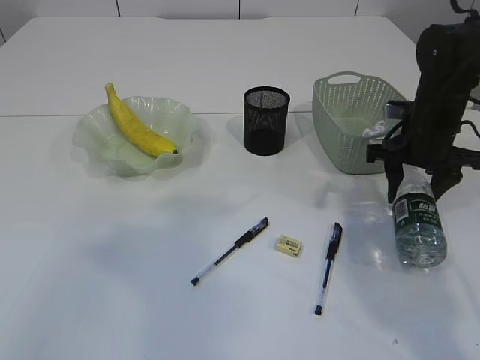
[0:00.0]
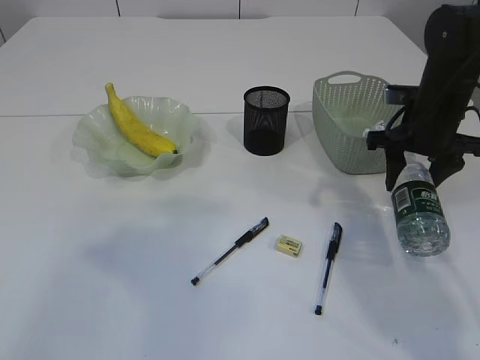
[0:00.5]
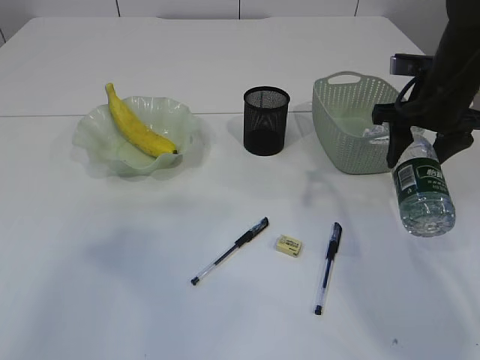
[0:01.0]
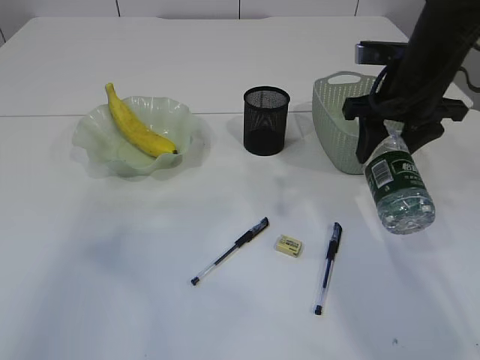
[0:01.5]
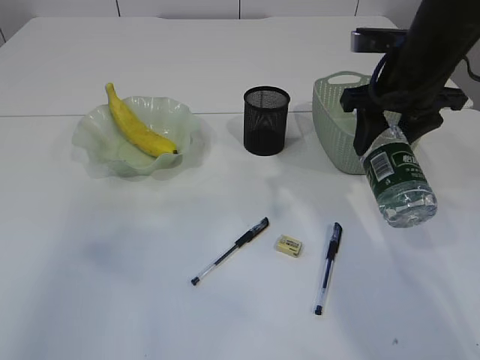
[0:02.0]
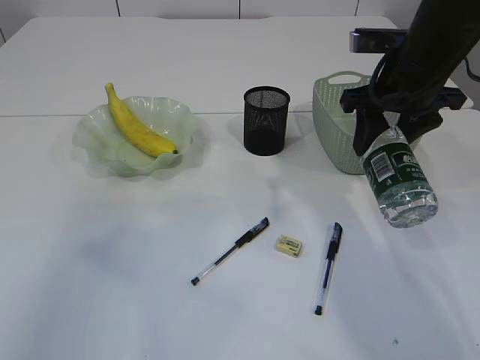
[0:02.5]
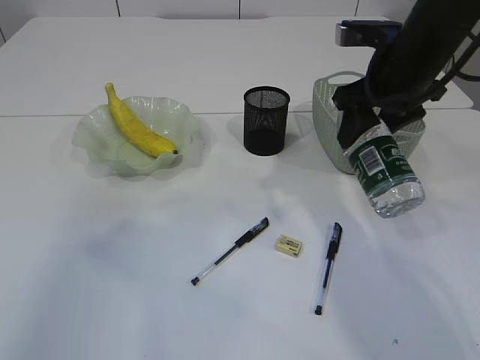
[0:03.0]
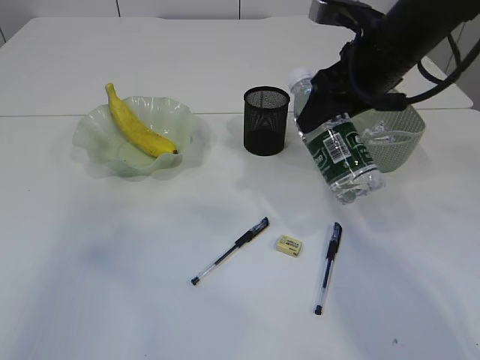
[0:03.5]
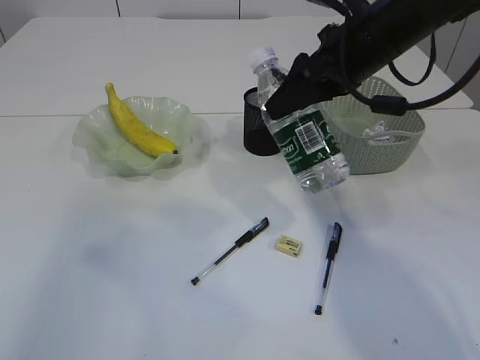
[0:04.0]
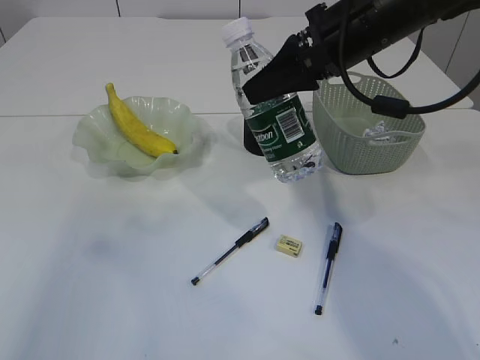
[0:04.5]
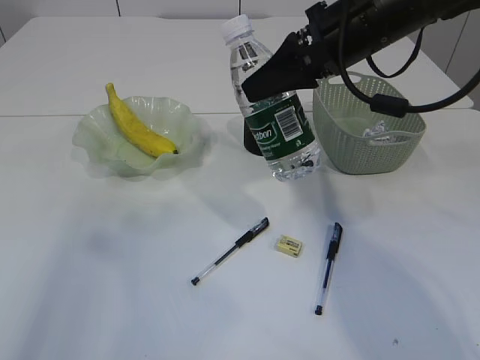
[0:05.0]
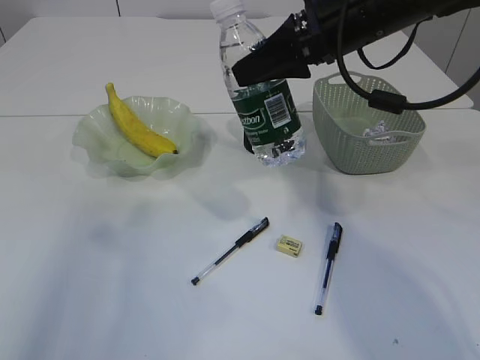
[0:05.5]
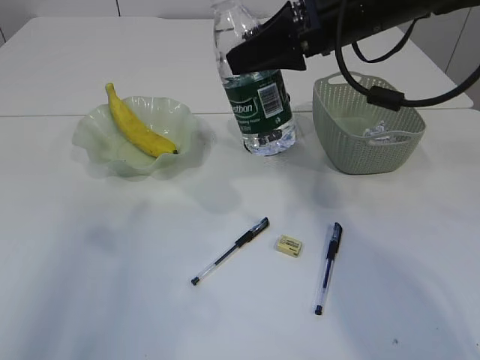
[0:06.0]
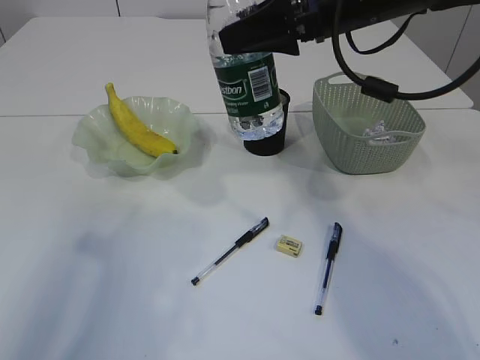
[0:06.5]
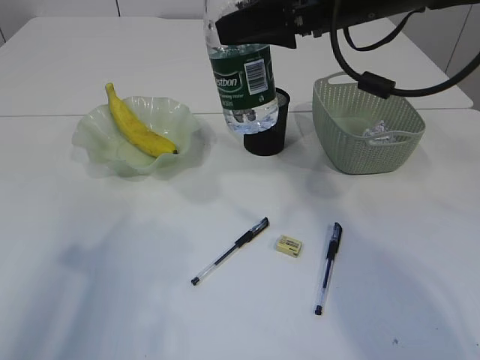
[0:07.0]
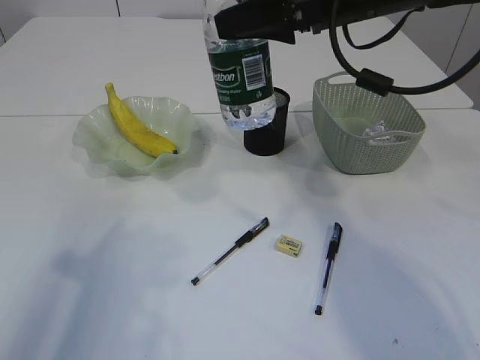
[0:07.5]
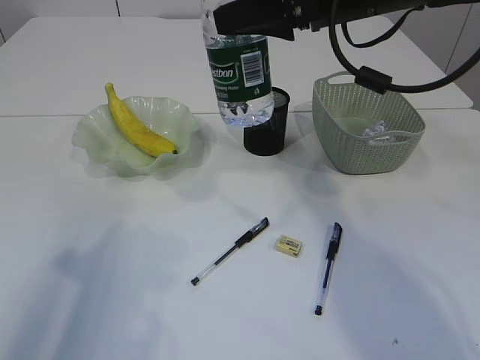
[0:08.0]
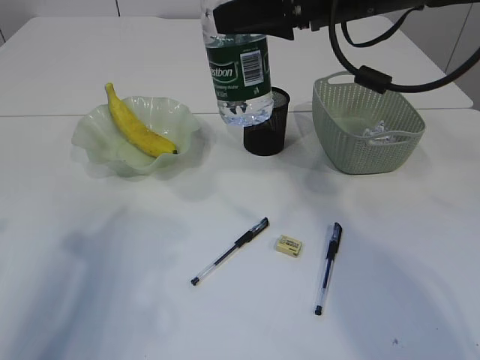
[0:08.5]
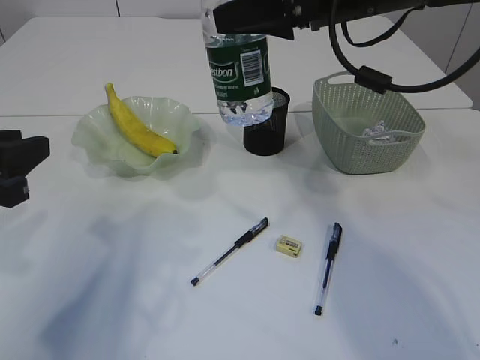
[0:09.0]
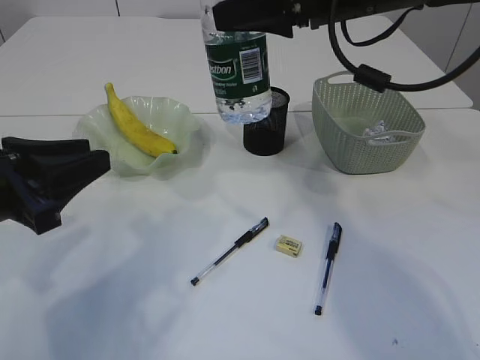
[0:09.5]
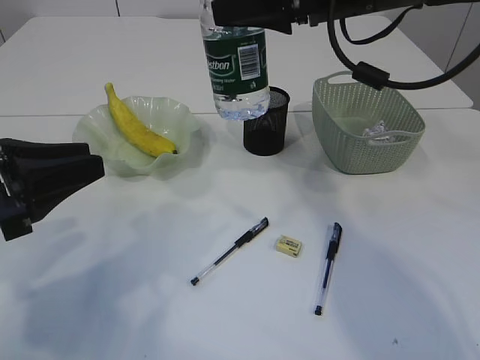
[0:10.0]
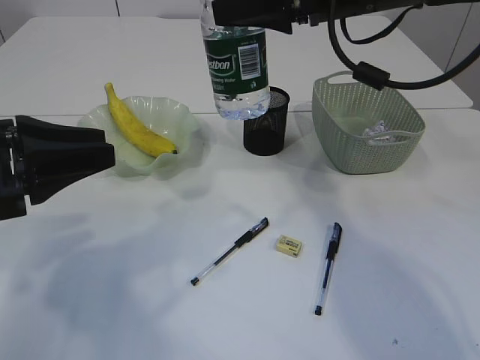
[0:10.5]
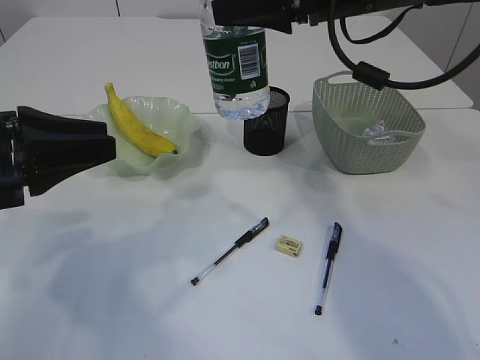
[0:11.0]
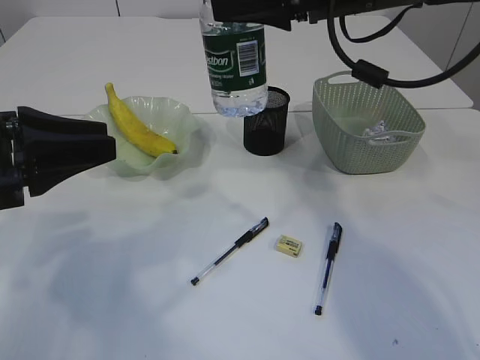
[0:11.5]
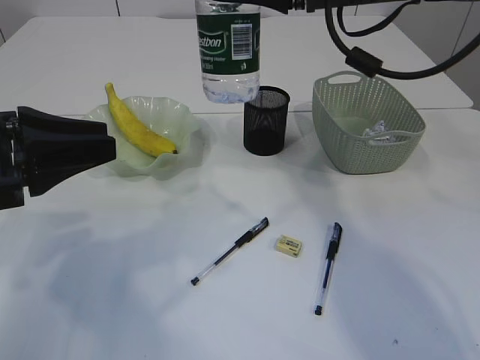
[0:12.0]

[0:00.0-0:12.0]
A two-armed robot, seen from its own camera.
0:00.0 to 0:02.0: The right gripper heads upward and to the left, covering approximately 10 cm.
0:02.0 to 0:04.0: The right gripper is displaced to the left by roughly 5 cm.
0:04.0 to 0:06.0: The left gripper is displaced downward by about 10 cm.
0:06.0 to 0:08.0: The left gripper is displaced downward by about 5 cm.
0:08.0 to 0:10.0: The left gripper goes about 10 cm forward and downward.
0:10.0 to 0:12.0: The grippers stay close to where they were, moving slightly.

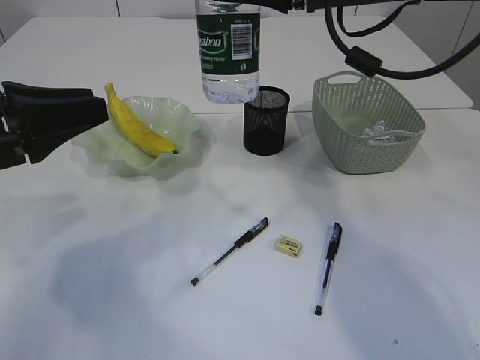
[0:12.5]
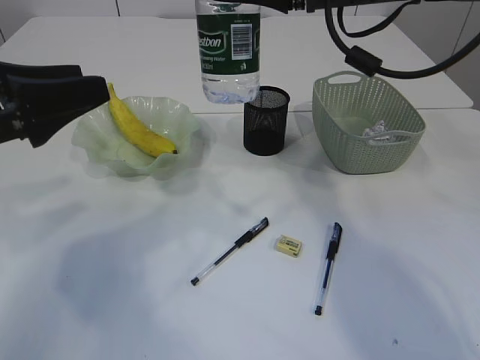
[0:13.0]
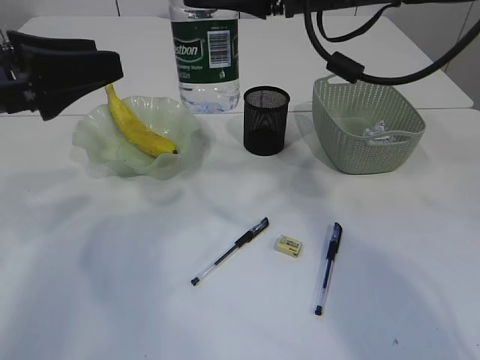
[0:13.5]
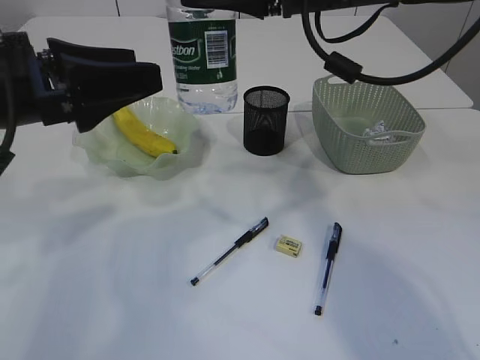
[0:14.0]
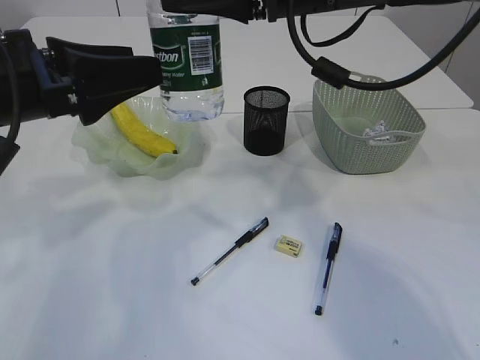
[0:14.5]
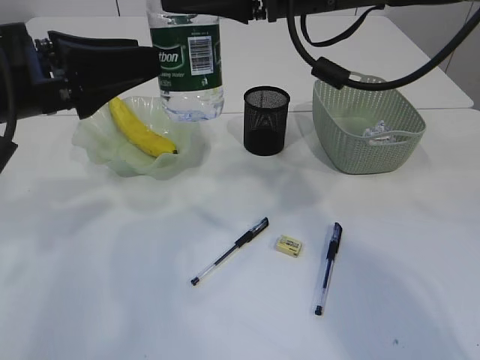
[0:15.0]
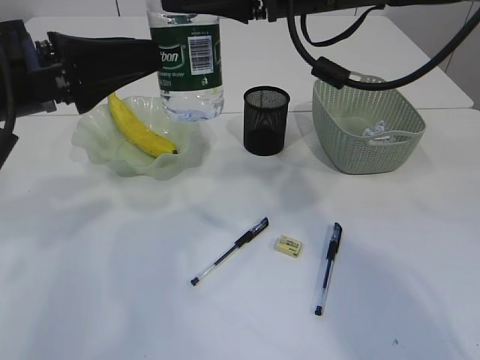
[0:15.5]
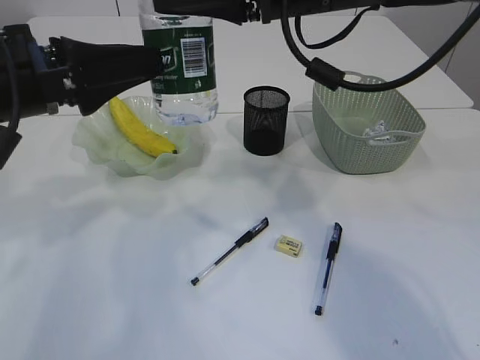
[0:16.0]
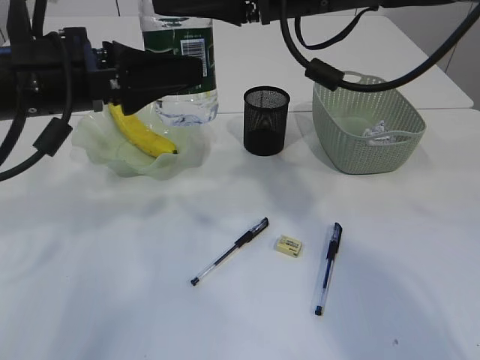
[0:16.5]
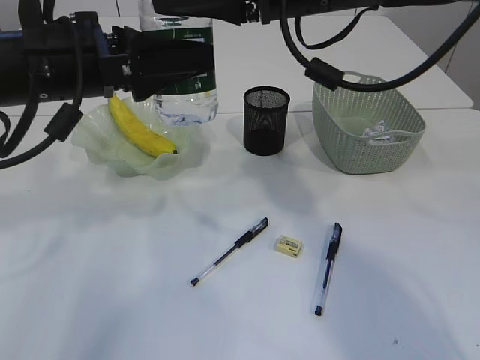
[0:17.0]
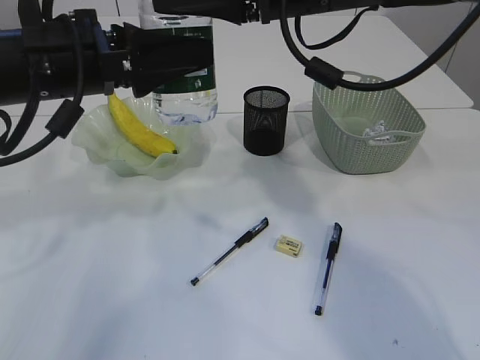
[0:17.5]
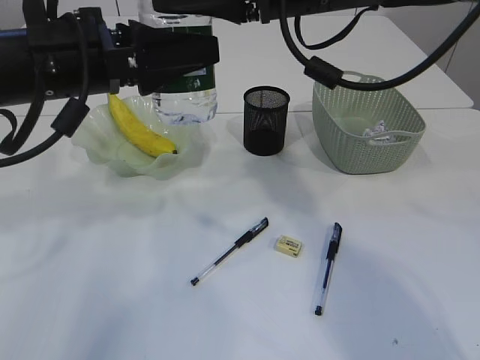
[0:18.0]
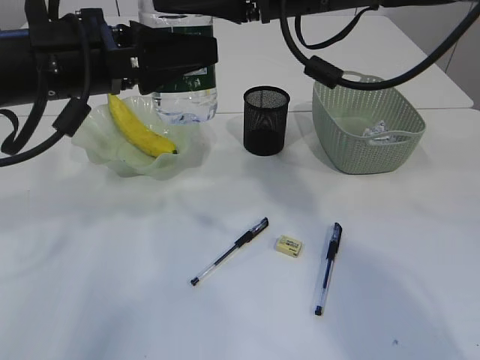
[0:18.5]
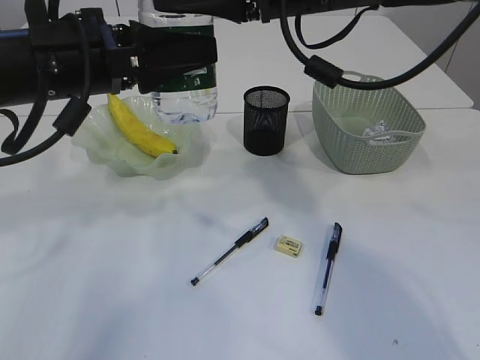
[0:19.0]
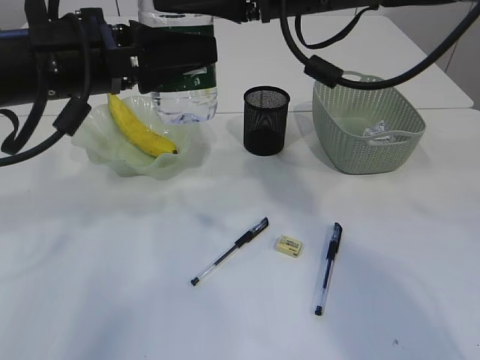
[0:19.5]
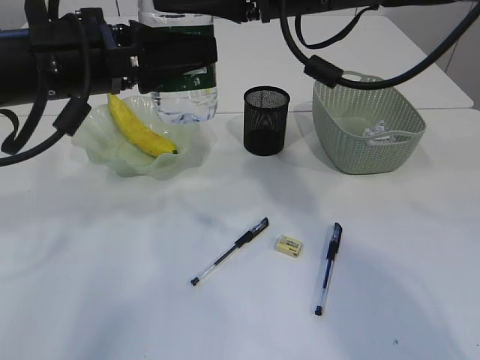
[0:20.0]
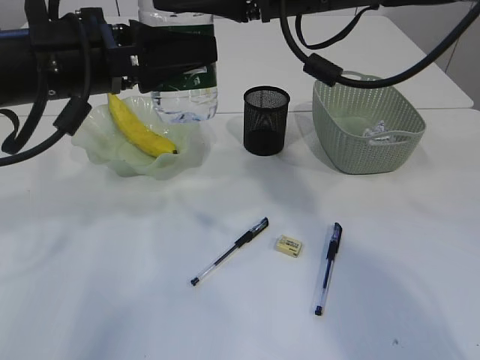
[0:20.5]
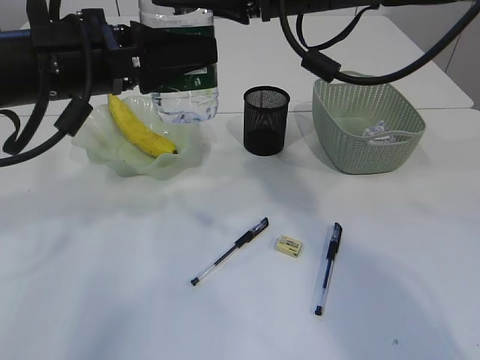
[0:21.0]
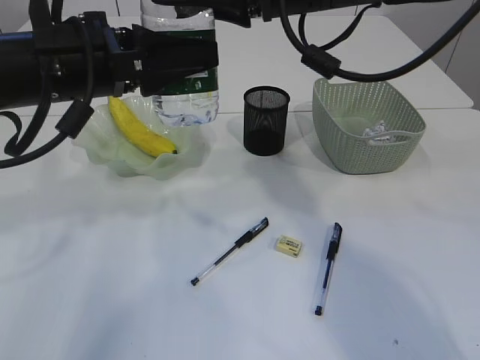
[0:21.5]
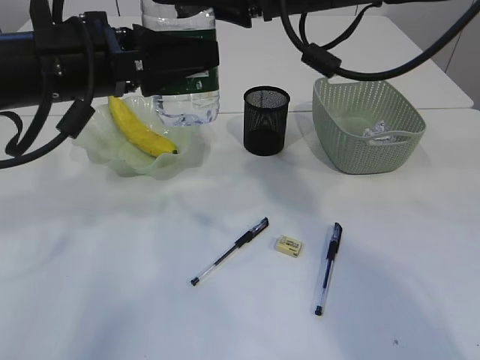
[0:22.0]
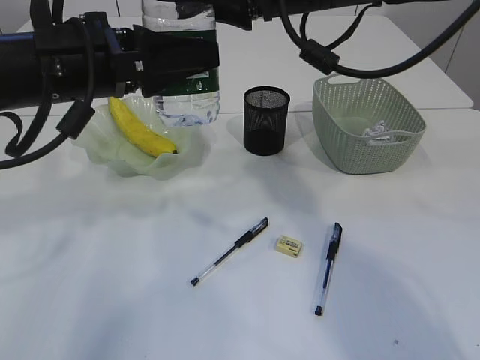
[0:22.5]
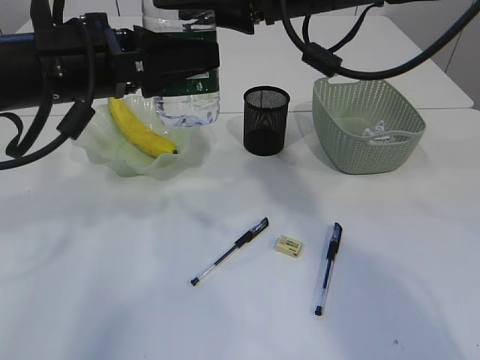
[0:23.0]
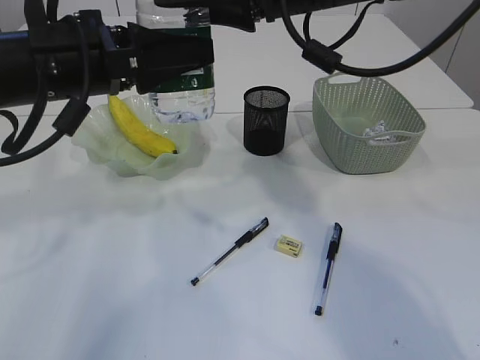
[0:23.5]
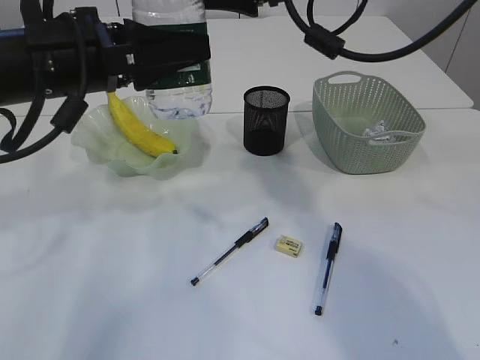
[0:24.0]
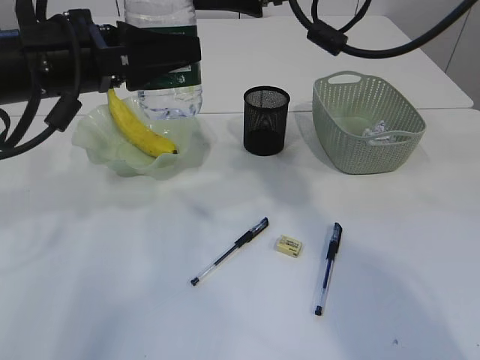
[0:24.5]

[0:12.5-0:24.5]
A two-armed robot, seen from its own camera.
0:12.5 to 0:14.5: The left gripper ends up about 5 cm from where it was, and opens up.
0:14.5 to 0:18.5: The grippers make only small movements.
0:18.5 to 0:20.5: The two grippers keep their place.
0:20.5 to 0:24.5: The grippers stay close to where they were, moving slightly.

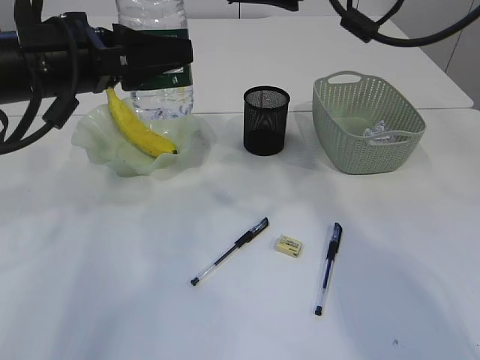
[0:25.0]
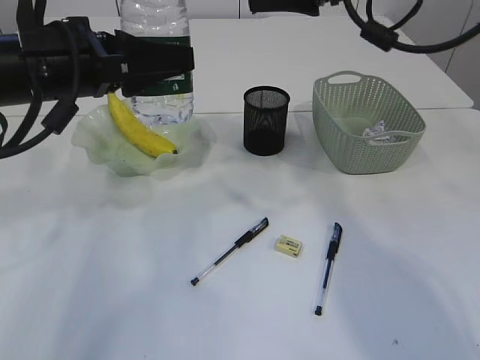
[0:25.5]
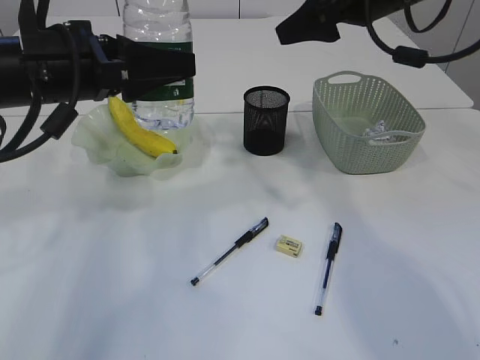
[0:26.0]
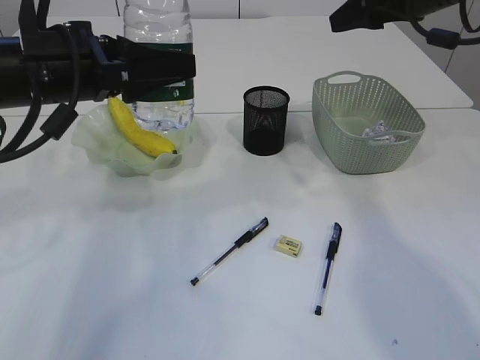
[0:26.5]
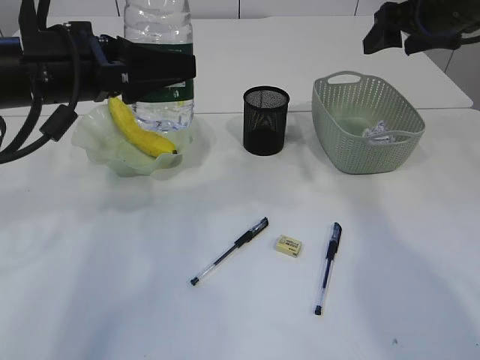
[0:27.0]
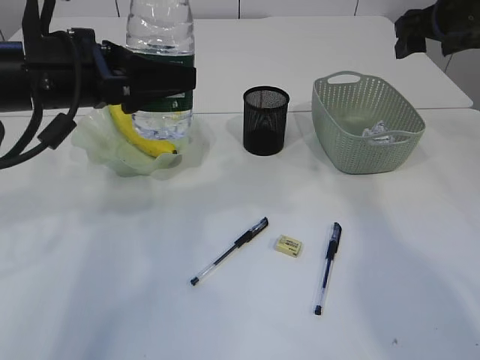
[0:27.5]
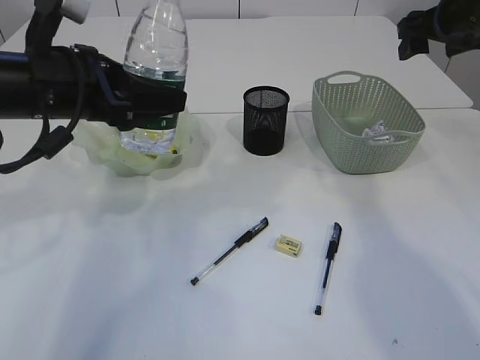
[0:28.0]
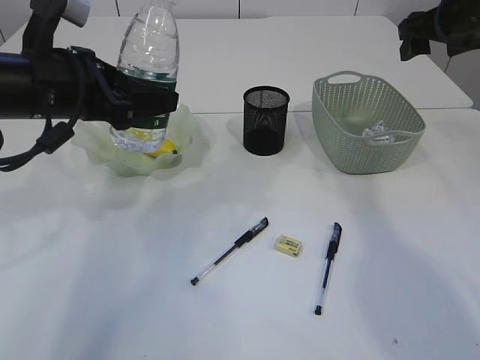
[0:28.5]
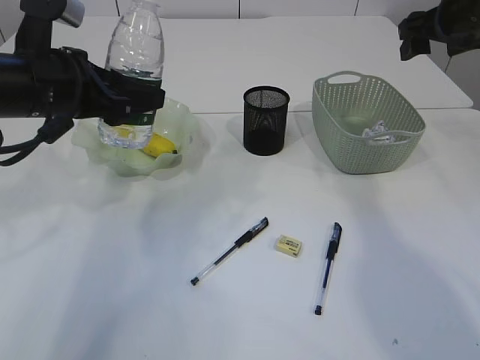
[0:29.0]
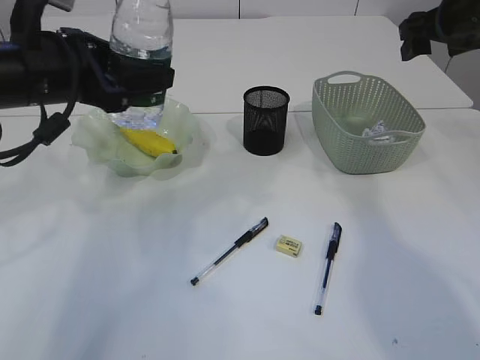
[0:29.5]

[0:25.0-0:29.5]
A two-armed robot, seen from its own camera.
0:25.0 to 0:27.0: The right gripper is displaced to the right by approximately 15 cm.
